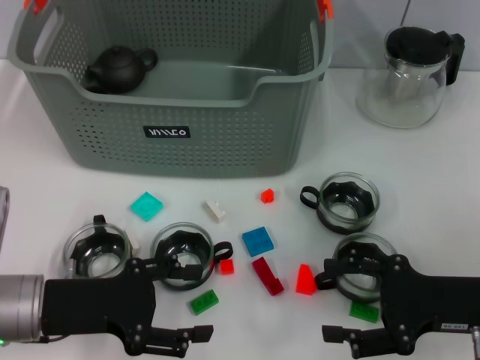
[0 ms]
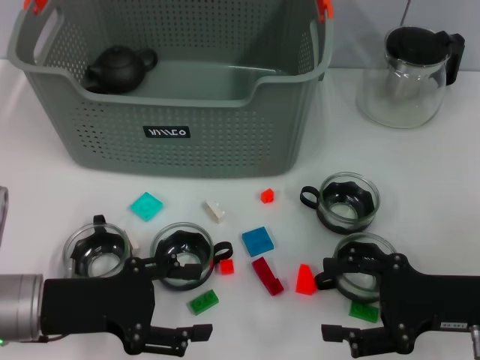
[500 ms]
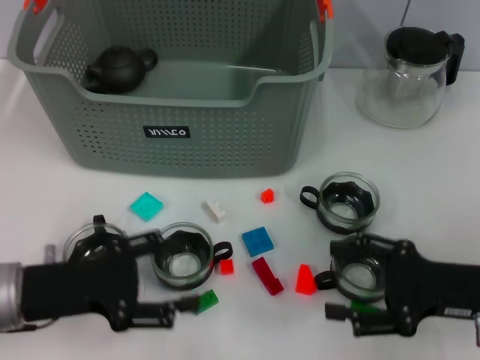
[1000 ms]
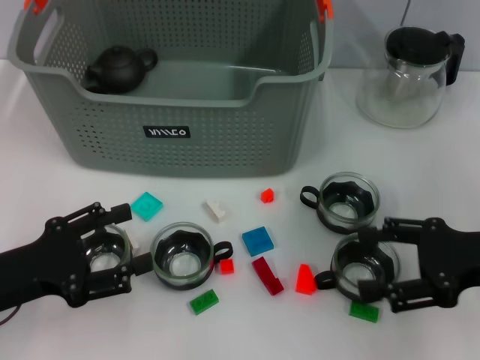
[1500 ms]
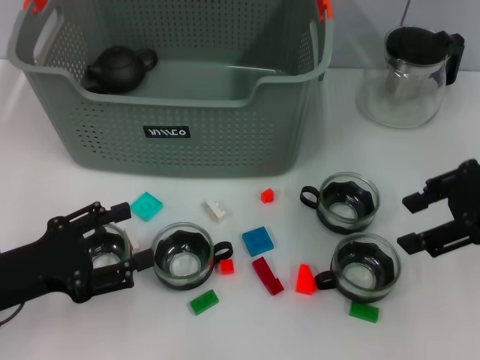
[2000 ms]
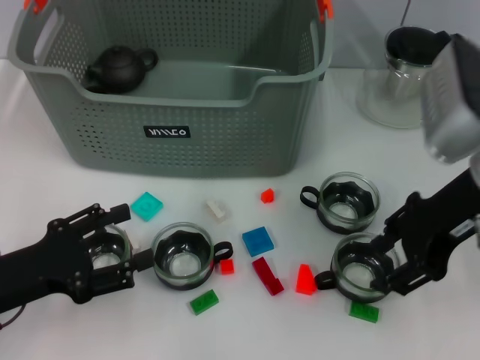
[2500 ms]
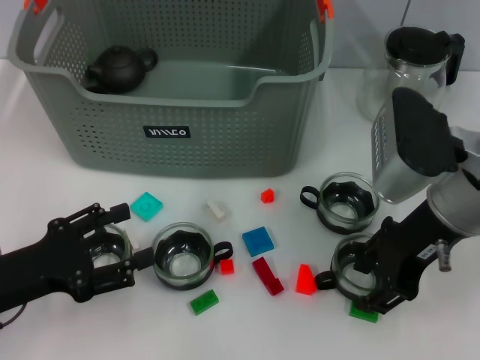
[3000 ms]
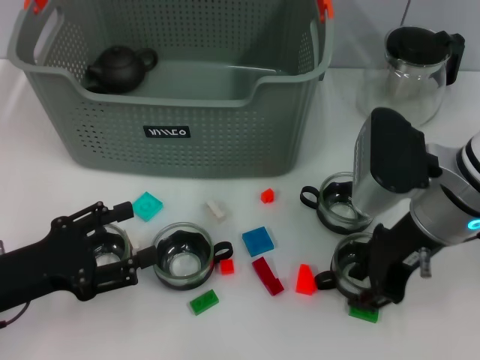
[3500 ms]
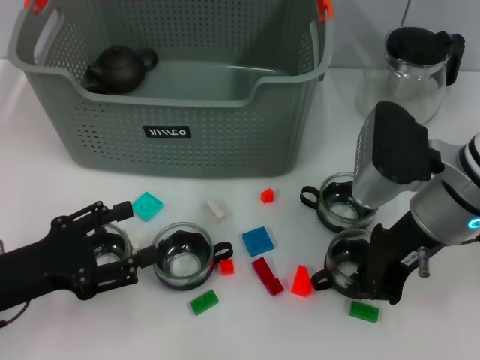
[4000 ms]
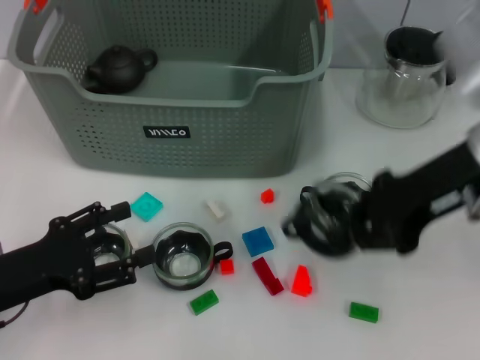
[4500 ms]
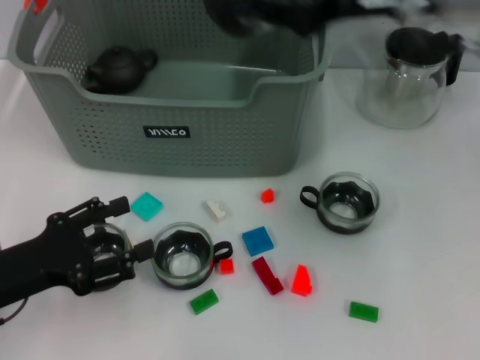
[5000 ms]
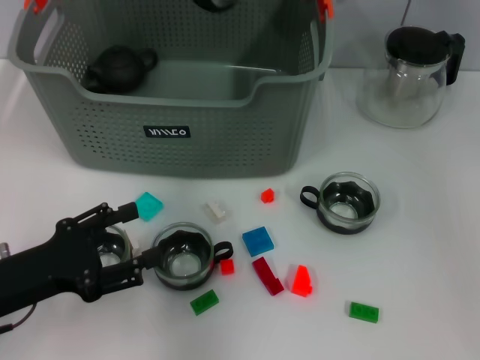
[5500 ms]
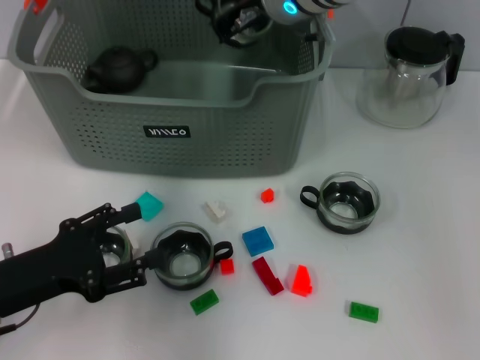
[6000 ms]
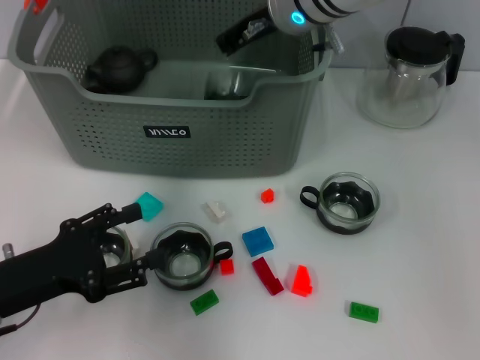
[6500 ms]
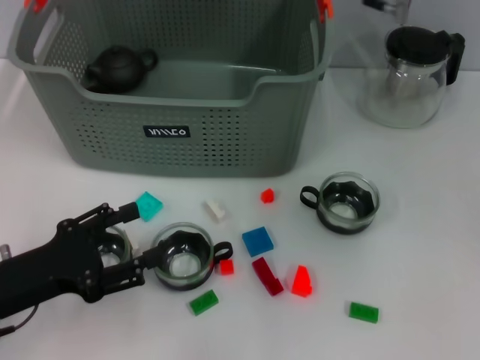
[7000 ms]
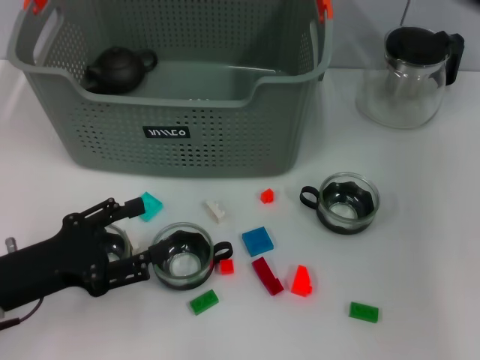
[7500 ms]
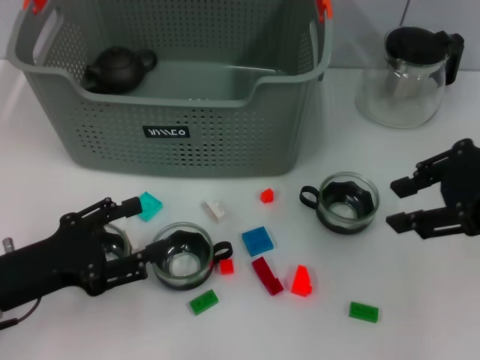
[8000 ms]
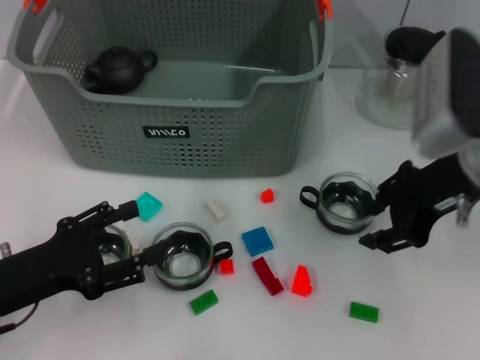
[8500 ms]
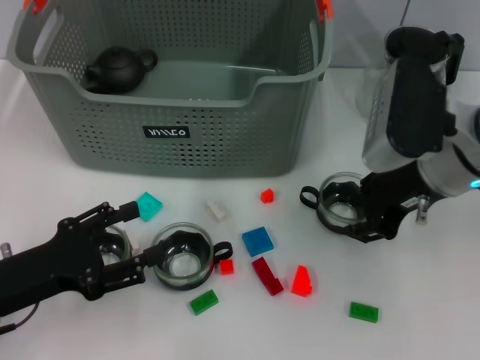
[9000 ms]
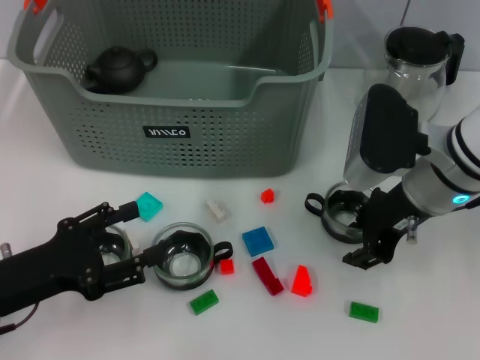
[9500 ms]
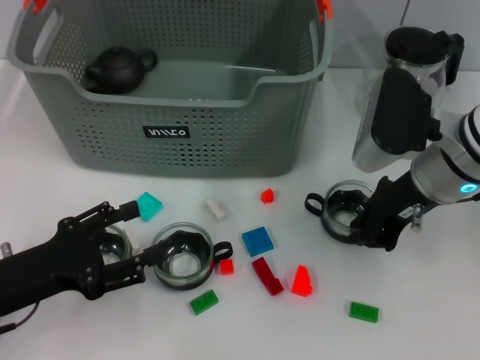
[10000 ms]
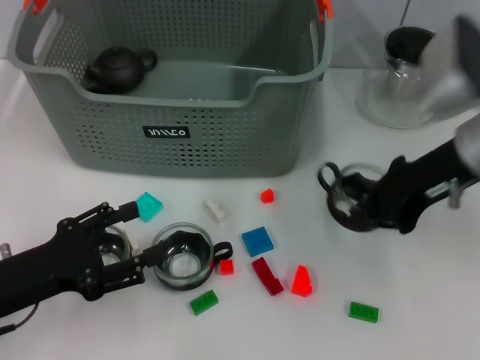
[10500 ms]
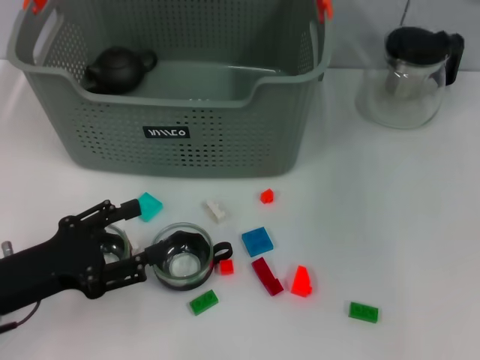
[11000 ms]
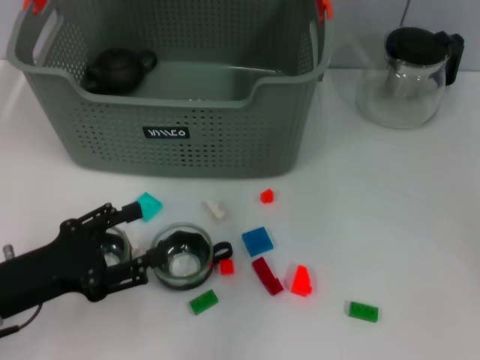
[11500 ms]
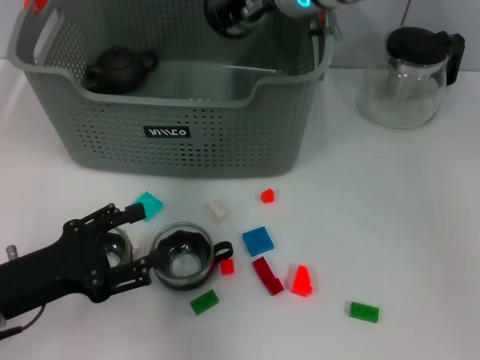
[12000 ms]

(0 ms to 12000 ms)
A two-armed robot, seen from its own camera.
Task of the whole recording: pick up the teacup on the table and place it into the storage bin, pick up the block on the table and place it into the storage bin.
Step, 0 ms - 3500 ms: Grasp the cup with right gripper.
Step, 4000 ms - 6500 ms: Place the cup in the storage box with right gripper.
Step, 7000 ms - 10000 ms: Grasp the cup with right gripper.
0 ms - 2000 ms: The right gripper goes roughly 15 cm upward and forward; the left gripper moves about 5 cm.
2000 ms - 4000 ms: The right gripper travels to the left and downward by roughly 10 cm, and closes.
4000 ms - 6000 ms: The right gripper travels forward, to the left and upward by roughly 20 cm.
6000 ms - 8000 ms: The right gripper is displaced to the right and backward by about 30 cm, and opens its fingers.
8000 ms - 10000 ms: The right gripper shifts approximately 15 cm downward, to the left and forward.
10000 ms - 12000 ms: The right gripper travels to the left, forward and upward by roughly 20 cm, and closes.

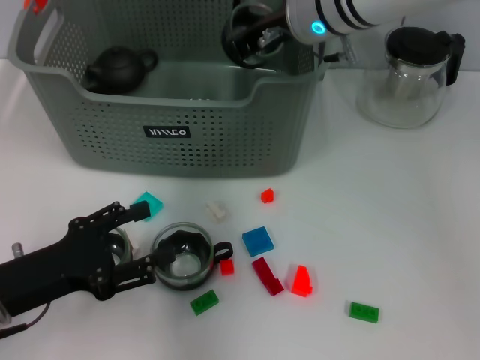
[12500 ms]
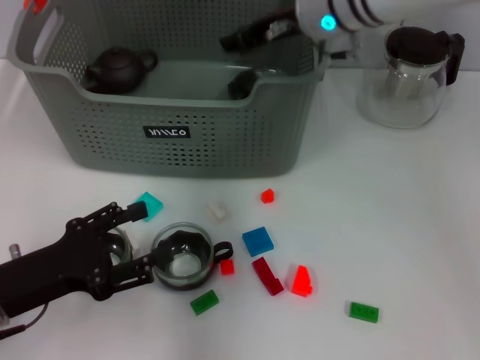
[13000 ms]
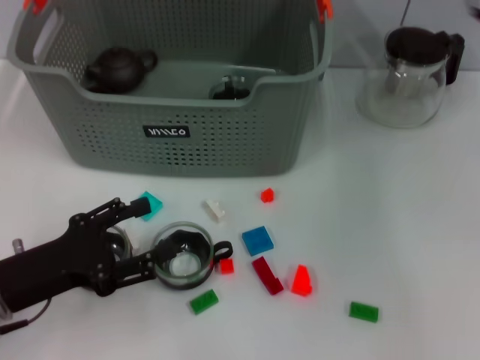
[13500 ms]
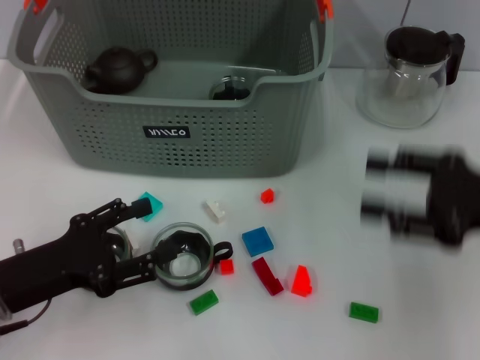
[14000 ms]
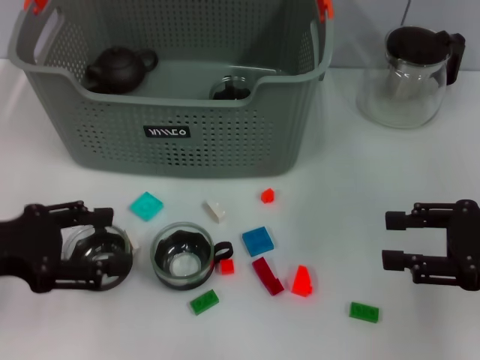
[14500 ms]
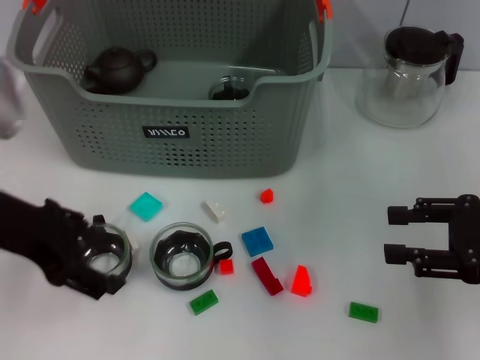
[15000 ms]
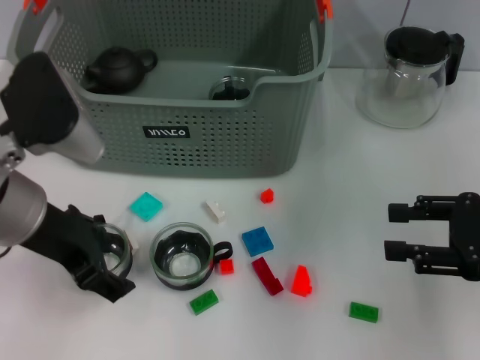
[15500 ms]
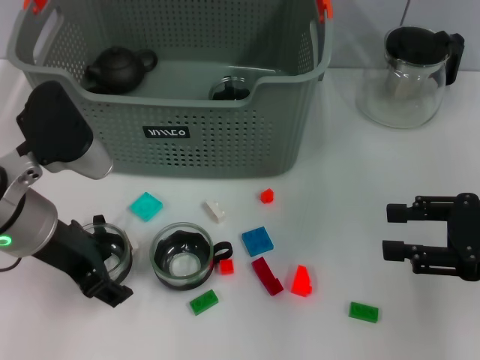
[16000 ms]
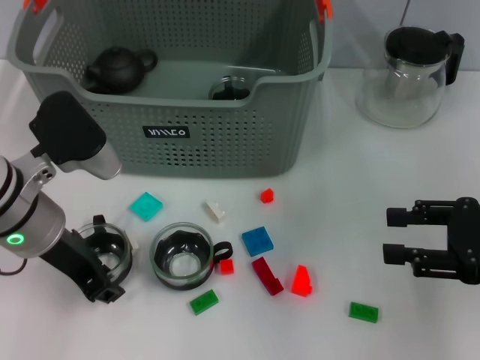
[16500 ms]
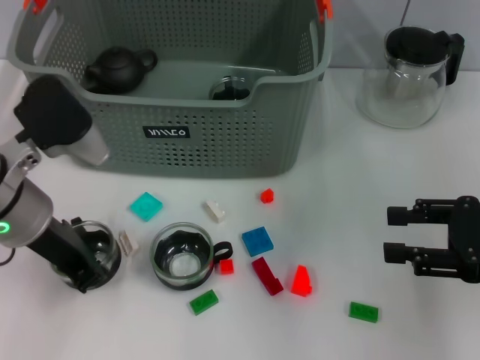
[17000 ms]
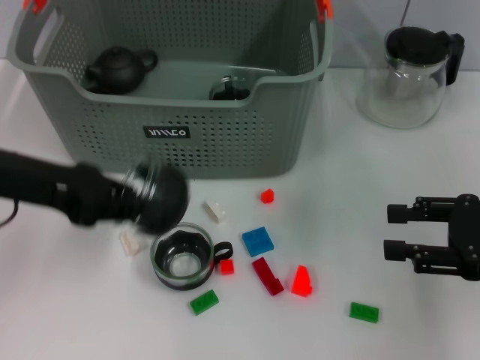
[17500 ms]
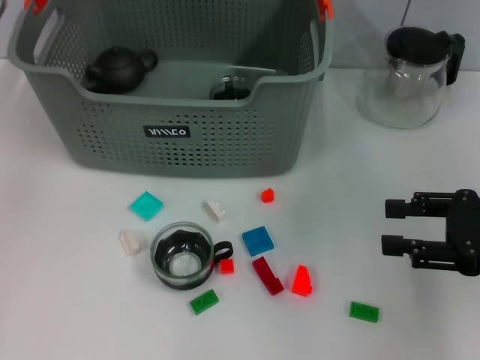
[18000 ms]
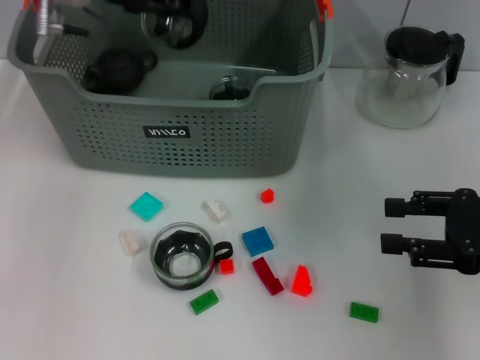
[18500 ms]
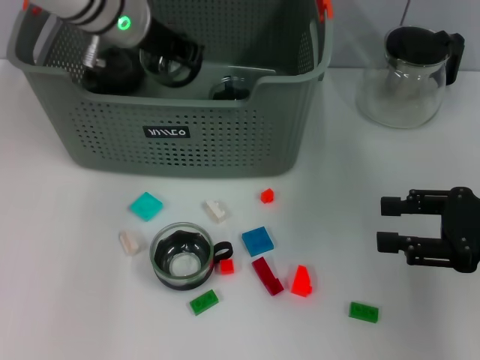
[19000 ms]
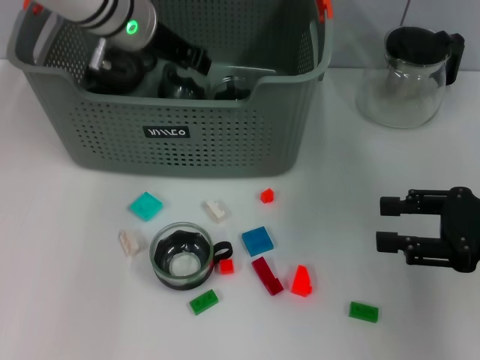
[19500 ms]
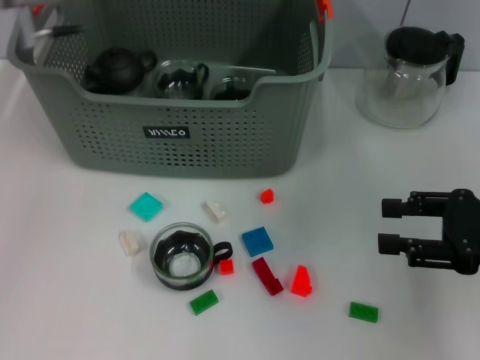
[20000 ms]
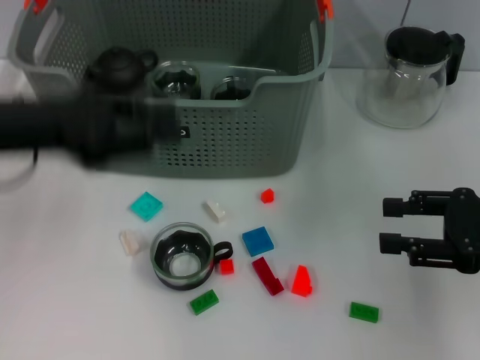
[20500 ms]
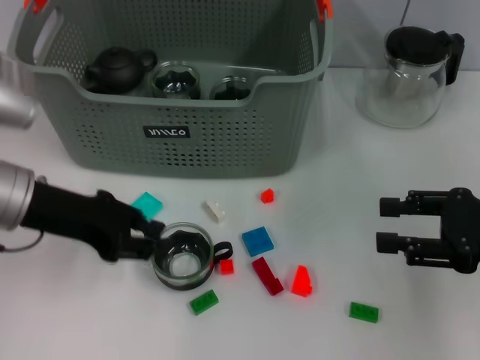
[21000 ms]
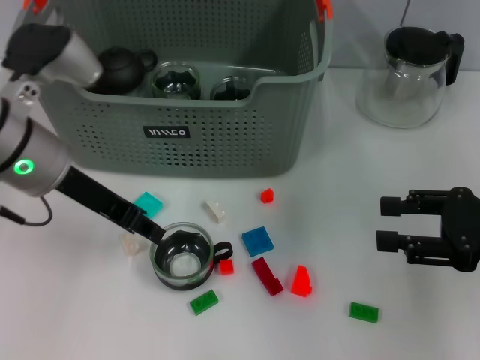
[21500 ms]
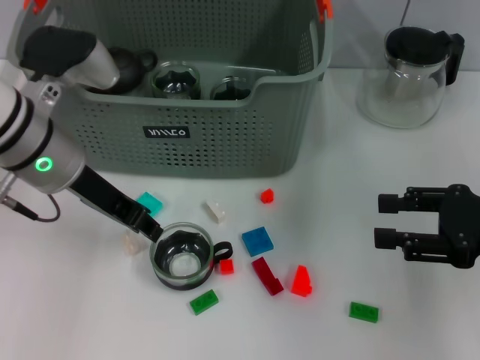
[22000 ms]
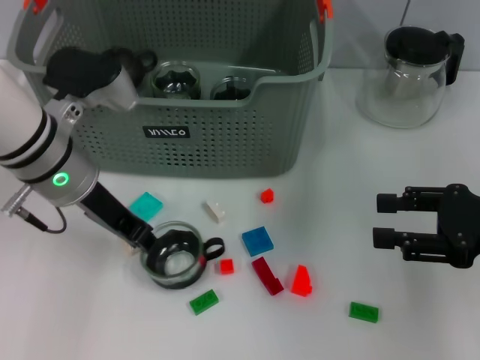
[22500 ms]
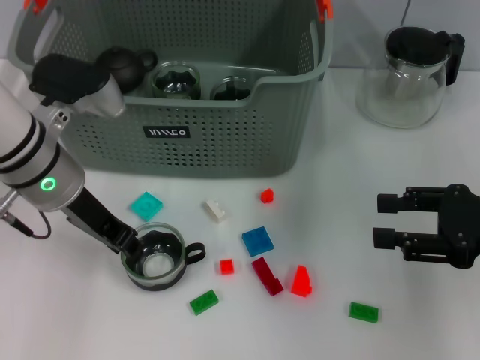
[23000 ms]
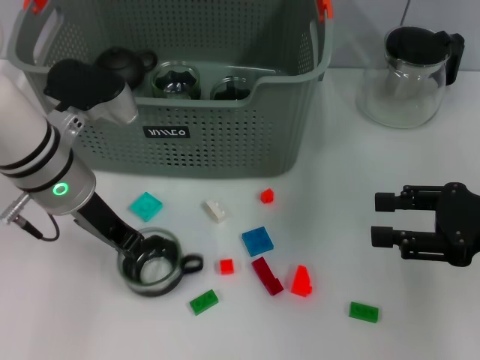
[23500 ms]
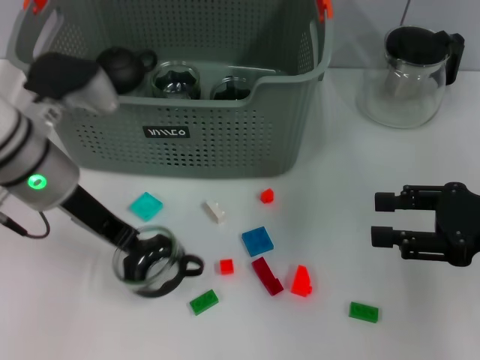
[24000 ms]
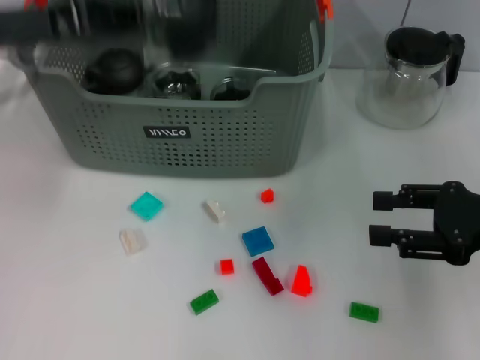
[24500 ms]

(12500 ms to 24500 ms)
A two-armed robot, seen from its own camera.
Task of the whole recording: pick up the teacup on the table and place it into the storage bin, pick up the block on the table and place it into the storage bin.
Step, 13500 ms - 16500 ms: Grasp the cup with left gripper.
Step, 17000 ms - 19500 ms: Place the cup in the storage box with left gripper.
Step, 20000 ms - 23500 ms: Grasp the cup with left gripper.
12500 ms - 14500 ms: The left gripper shifts approximately 10 cm upward; the right gripper goes approximately 30 cm to the right and backward, and opens its fingers.
14500 ms - 16500 ms: The left gripper is displaced to the right and forward by about 10 cm.
16500 ms - 18500 ms: The left gripper is displaced forward and upward by approximately 20 cm, and closes its fingers.
18500 ms - 20500 ms: The left gripper heads backward and to the left, covering roughly 15 cm, and opens its fingers.
20500 ms - 22500 ms: The left gripper travels to the right by some 10 cm.
22500 ms - 24500 ms: The left gripper moves upward and to the left, about 10 cm, and closes up.

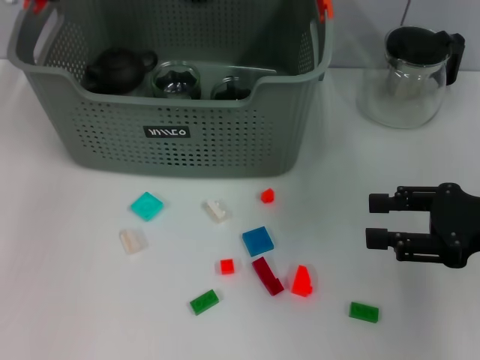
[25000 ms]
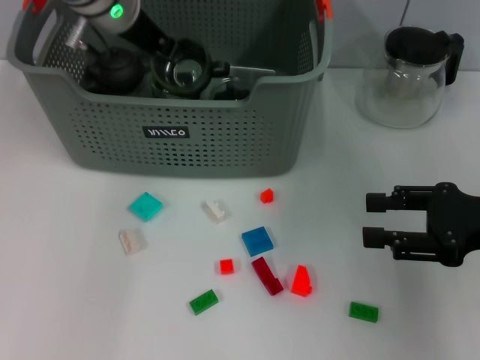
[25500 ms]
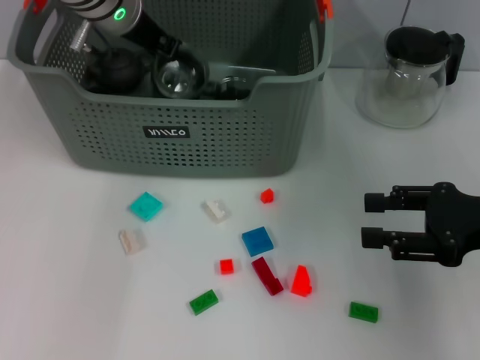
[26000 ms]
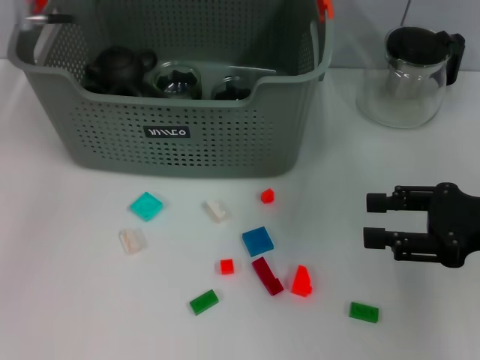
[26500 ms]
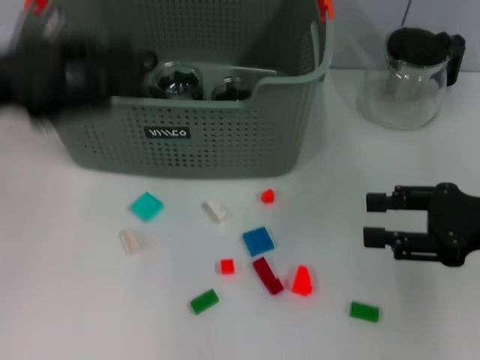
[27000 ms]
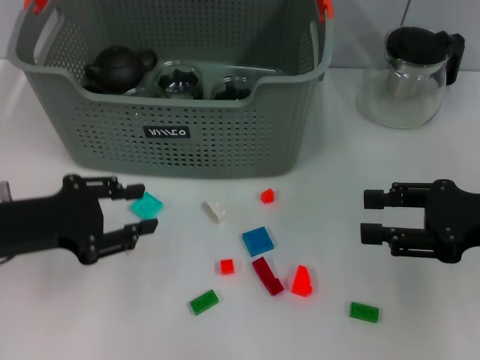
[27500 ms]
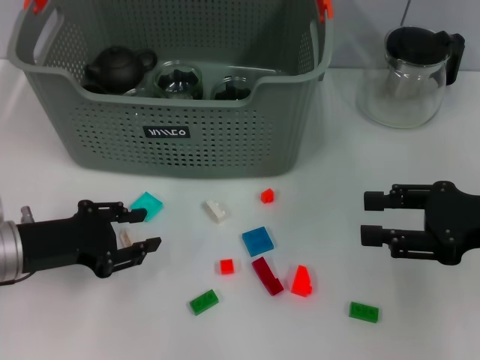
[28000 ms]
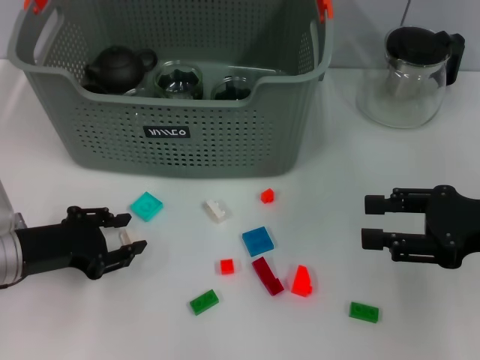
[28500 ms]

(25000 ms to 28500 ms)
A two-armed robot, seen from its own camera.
Task of the whole recording: pick up the teacup on the table and place it into the storage bin, pick up the block on the table and place it into the storage bin.
25000 ms - 27000 ms: The left gripper heads backward and to the left, covering some 20 cm, and opens.
27000 ms - 28500 ms: The left gripper travels downward by approximately 15 cm.
